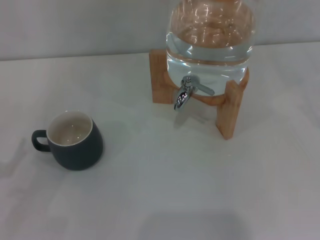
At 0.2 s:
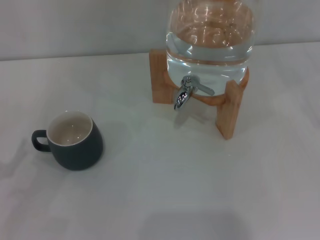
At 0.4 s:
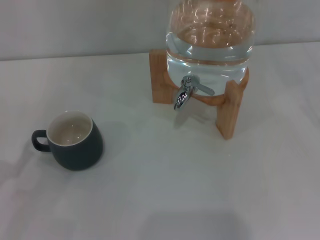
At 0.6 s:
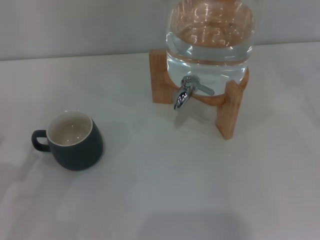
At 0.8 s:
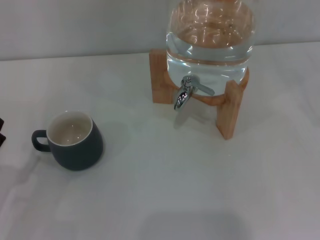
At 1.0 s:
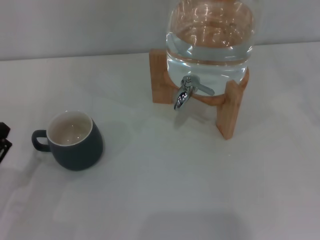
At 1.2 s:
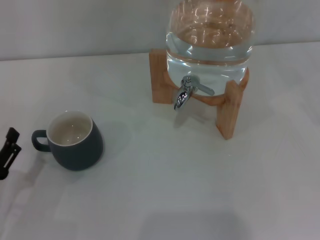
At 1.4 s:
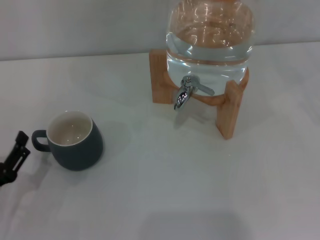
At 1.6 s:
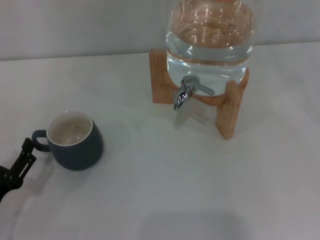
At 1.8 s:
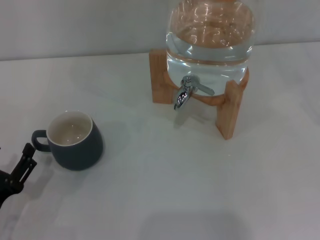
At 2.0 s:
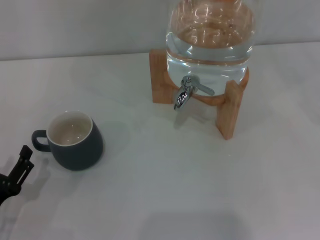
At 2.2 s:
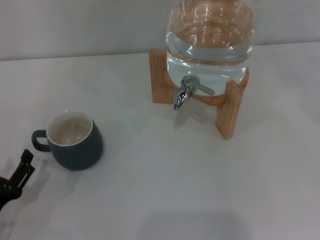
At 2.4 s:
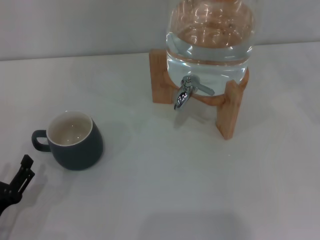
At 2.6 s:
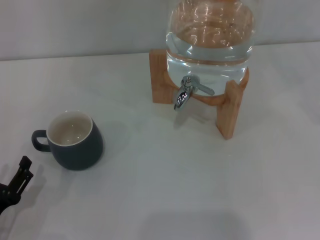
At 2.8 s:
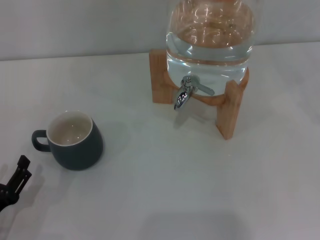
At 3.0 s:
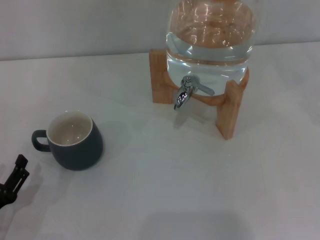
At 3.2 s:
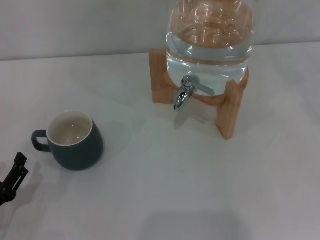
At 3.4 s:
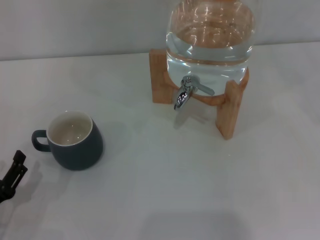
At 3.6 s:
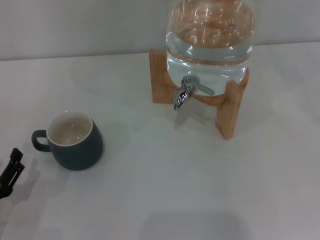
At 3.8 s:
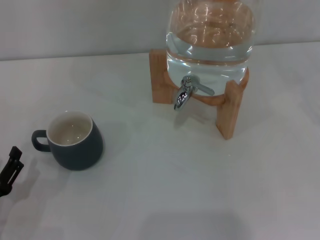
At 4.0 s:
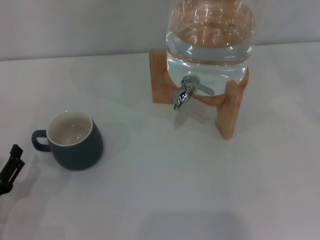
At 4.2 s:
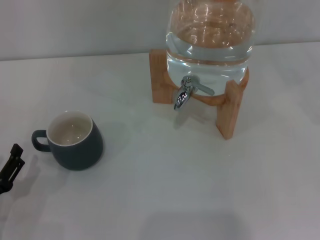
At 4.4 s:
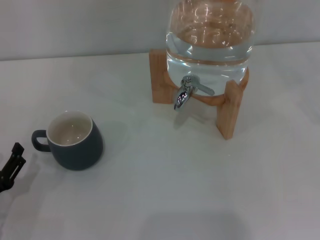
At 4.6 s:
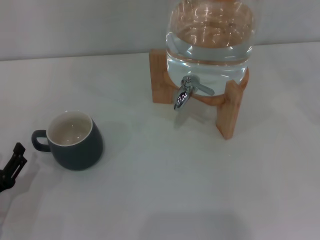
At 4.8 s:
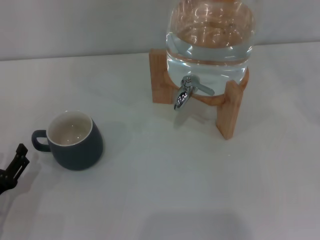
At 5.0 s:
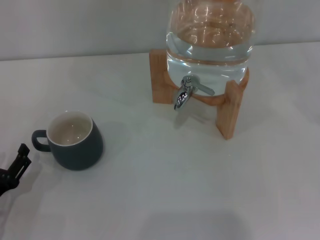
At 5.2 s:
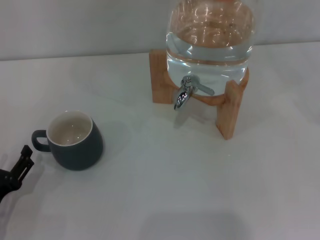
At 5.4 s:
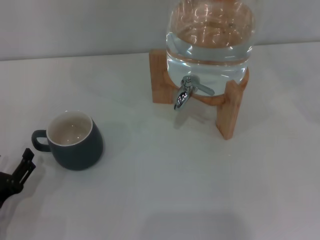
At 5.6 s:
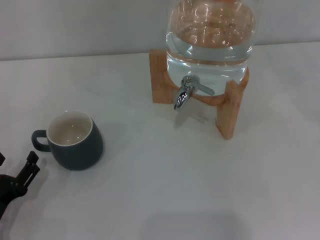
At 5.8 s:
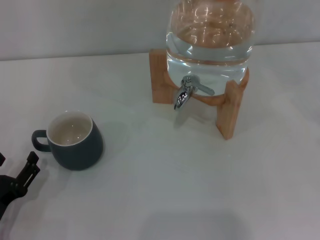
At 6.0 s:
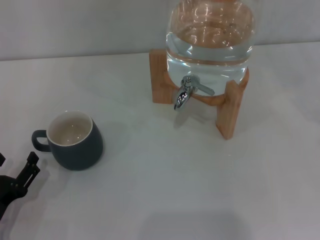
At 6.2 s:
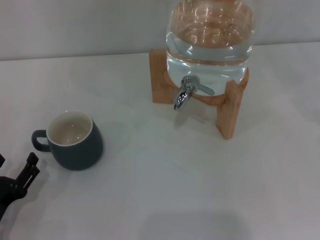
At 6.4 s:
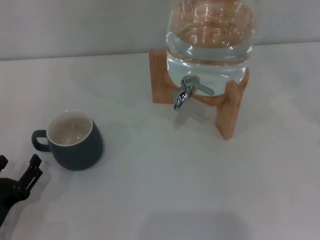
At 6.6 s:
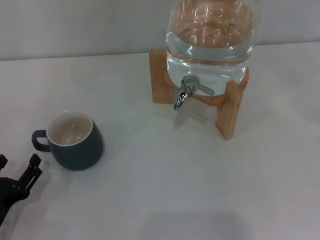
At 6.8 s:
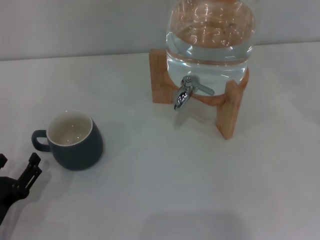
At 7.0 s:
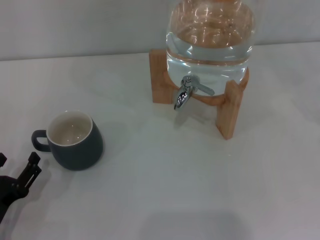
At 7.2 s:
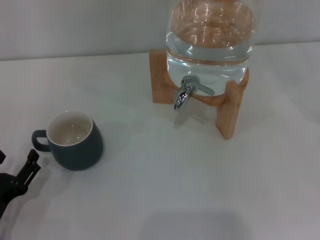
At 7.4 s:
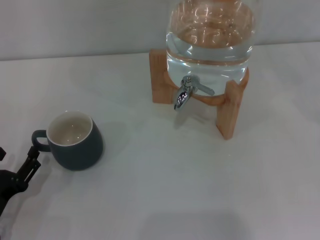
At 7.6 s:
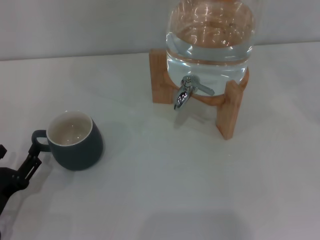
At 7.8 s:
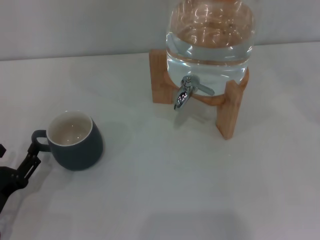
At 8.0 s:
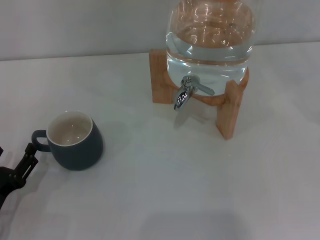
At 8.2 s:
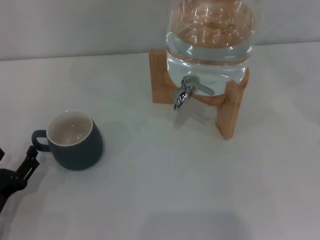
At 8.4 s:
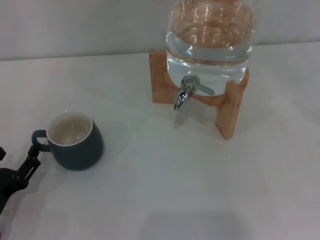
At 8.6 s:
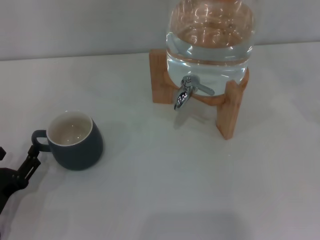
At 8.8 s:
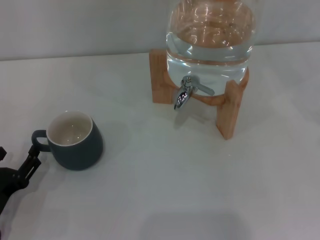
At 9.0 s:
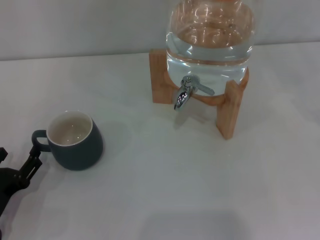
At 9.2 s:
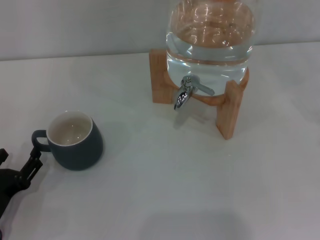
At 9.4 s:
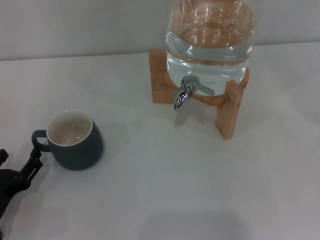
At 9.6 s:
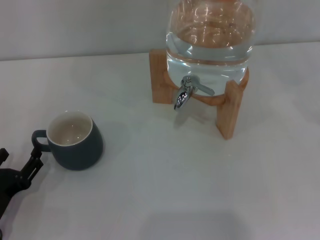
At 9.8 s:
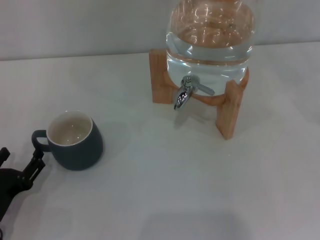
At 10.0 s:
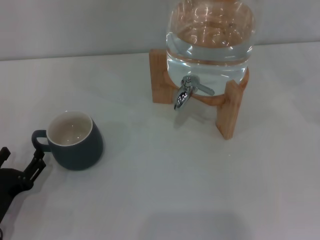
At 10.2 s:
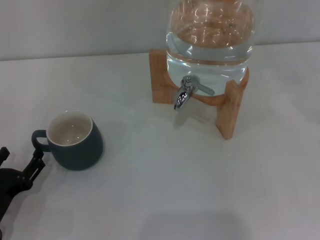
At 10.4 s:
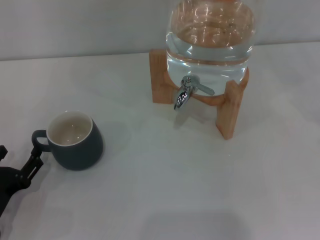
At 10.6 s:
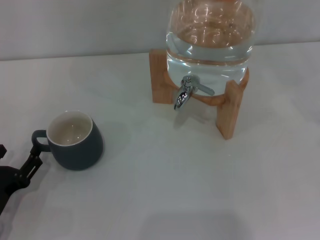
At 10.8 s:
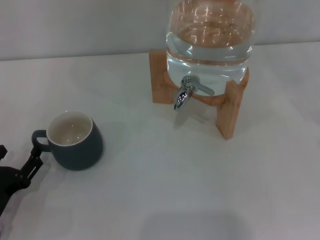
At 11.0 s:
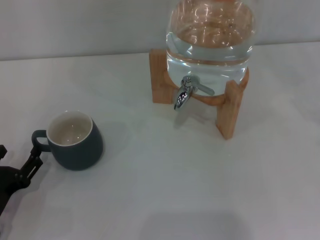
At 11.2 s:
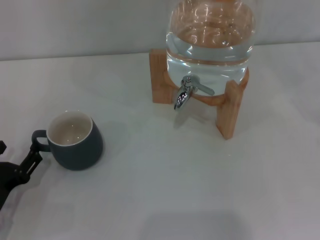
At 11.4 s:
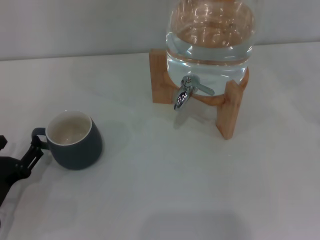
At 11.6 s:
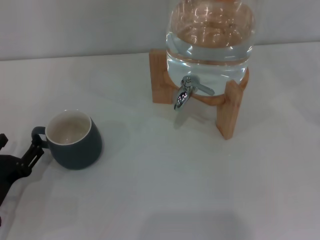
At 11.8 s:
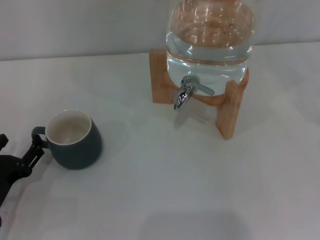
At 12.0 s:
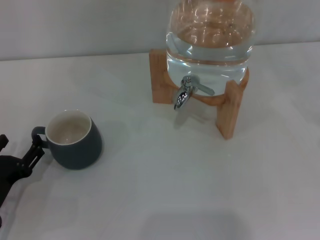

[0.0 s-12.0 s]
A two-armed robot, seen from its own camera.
Task of the whole recording: the left gripper pick up the black cup and place it horizontally under the faucet, the right gripper turn on the faucet to fill the cup, and then turn off the faucet.
0.0 to 1.6 s: The left gripper heads to the right and downward, covering some 10 cm.
1.6 to 4.4 s: There are only small adjustments of the grippers.
4.4 to 6.0 s: Neither gripper changes place.
6.0 to 7.6 s: Both grippers stay put.
7.6 to 9.0 s: Both grippers stay about where they are.
9.0 to 10.4 s: Neither gripper changes place.
10.4 to 12.0 s: The grippers stay close to where they were, moving slightly.

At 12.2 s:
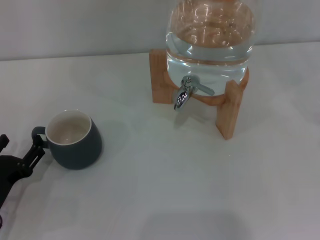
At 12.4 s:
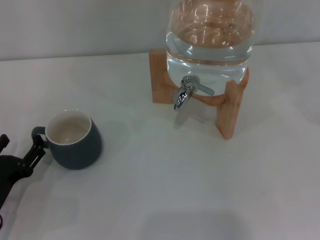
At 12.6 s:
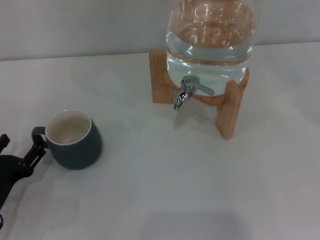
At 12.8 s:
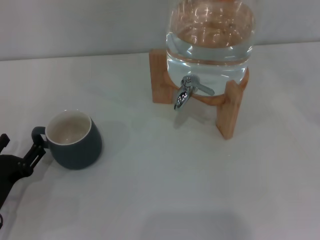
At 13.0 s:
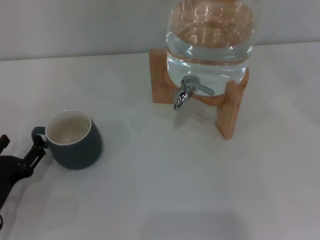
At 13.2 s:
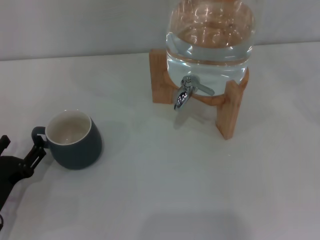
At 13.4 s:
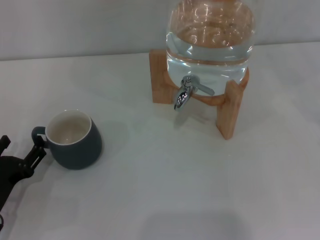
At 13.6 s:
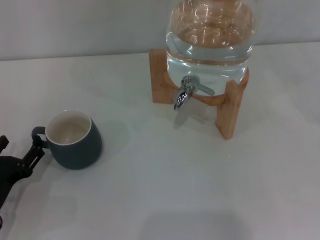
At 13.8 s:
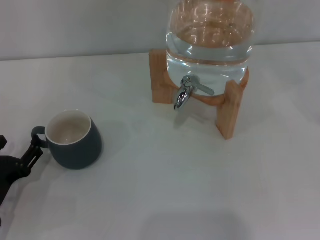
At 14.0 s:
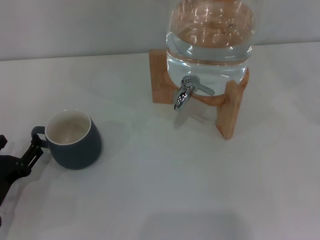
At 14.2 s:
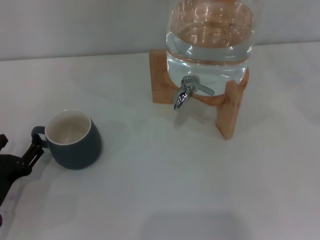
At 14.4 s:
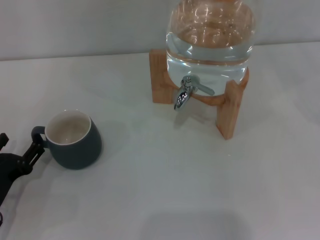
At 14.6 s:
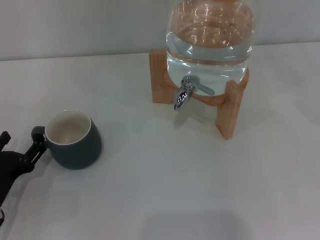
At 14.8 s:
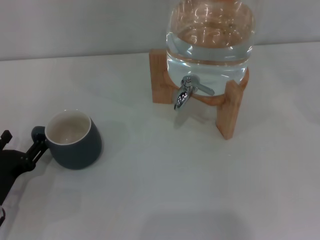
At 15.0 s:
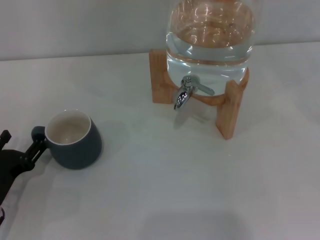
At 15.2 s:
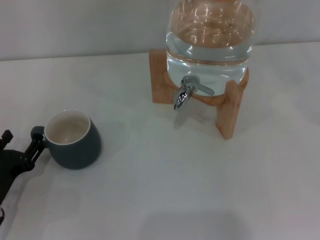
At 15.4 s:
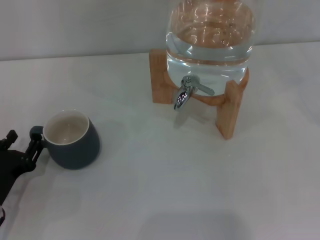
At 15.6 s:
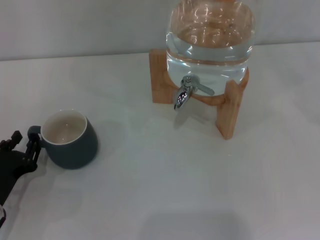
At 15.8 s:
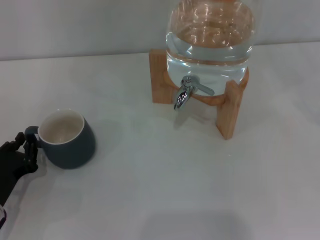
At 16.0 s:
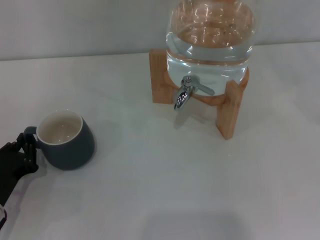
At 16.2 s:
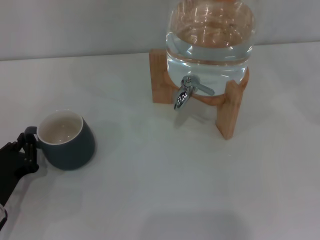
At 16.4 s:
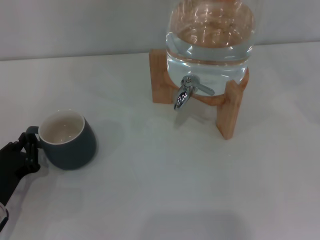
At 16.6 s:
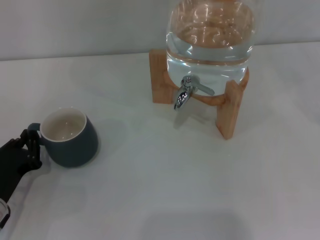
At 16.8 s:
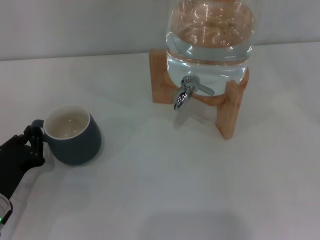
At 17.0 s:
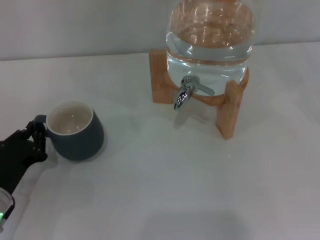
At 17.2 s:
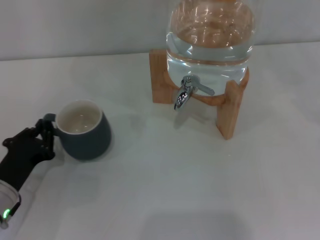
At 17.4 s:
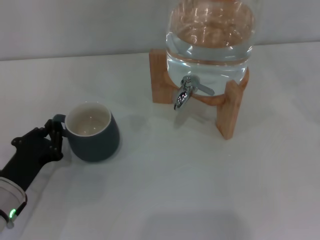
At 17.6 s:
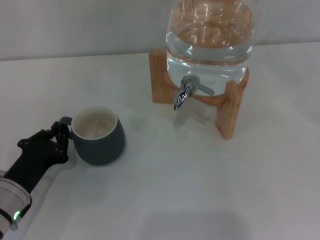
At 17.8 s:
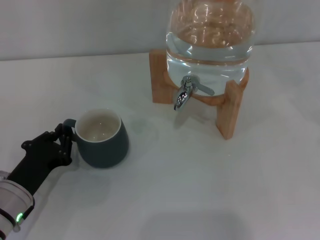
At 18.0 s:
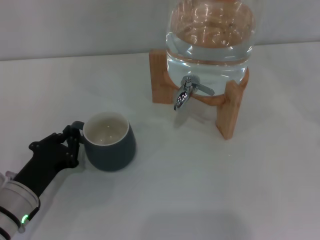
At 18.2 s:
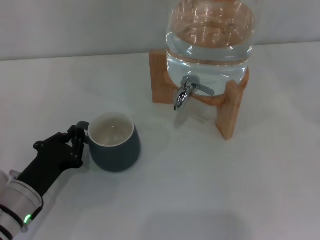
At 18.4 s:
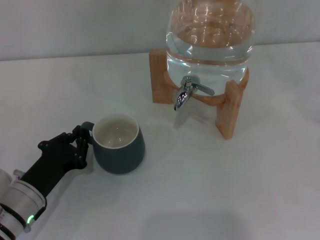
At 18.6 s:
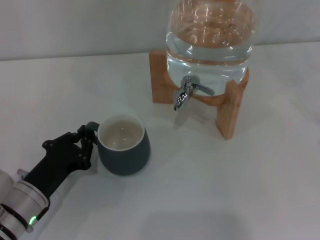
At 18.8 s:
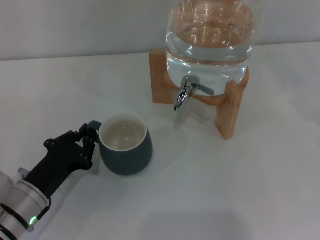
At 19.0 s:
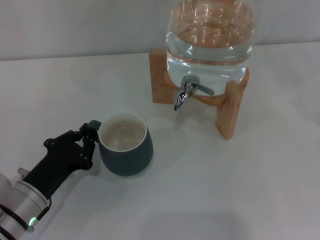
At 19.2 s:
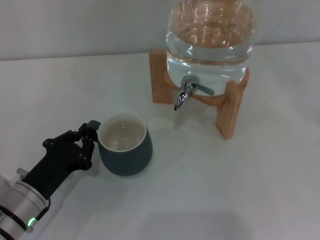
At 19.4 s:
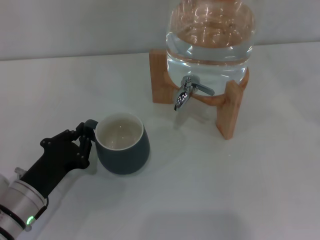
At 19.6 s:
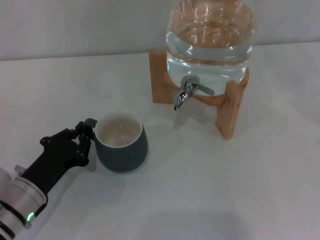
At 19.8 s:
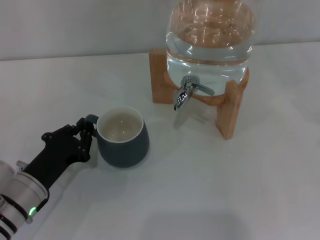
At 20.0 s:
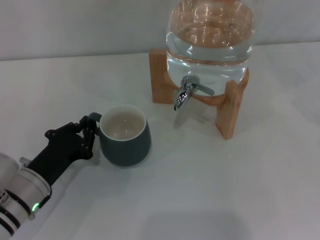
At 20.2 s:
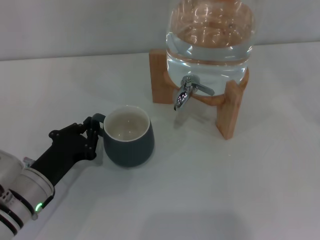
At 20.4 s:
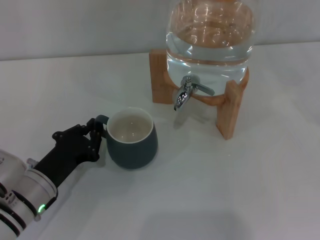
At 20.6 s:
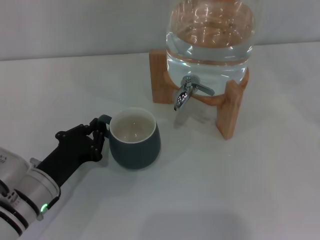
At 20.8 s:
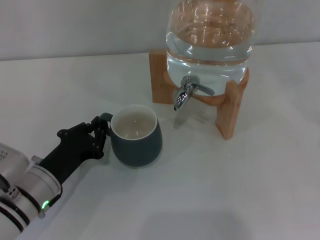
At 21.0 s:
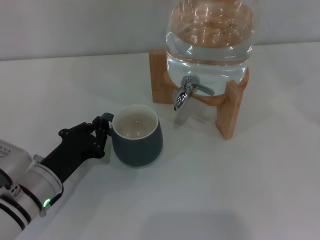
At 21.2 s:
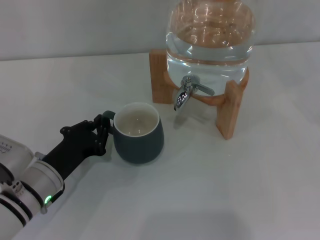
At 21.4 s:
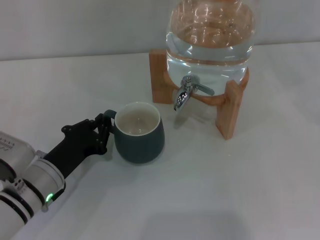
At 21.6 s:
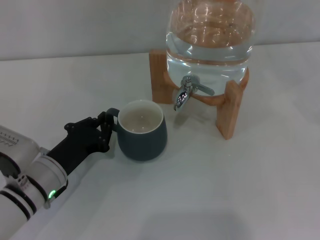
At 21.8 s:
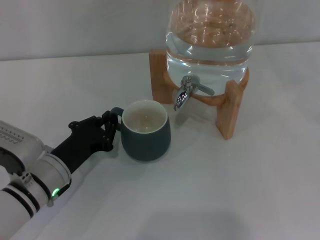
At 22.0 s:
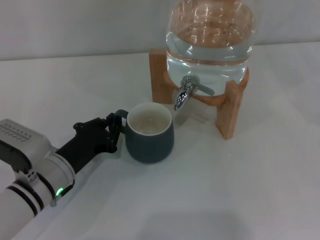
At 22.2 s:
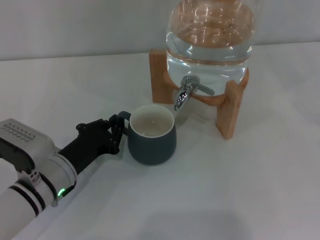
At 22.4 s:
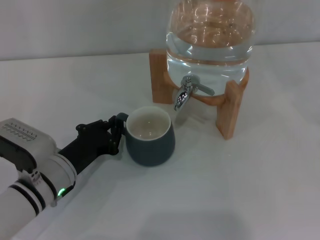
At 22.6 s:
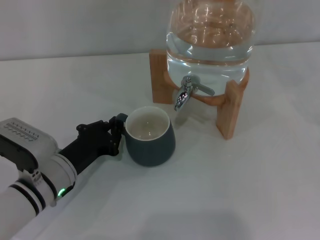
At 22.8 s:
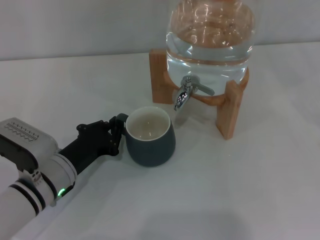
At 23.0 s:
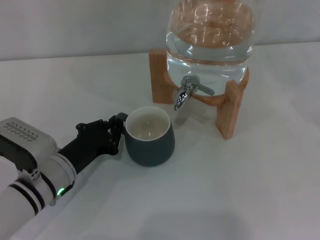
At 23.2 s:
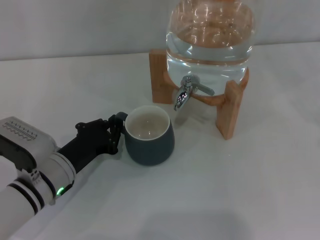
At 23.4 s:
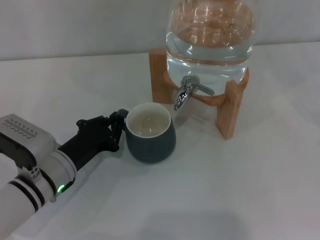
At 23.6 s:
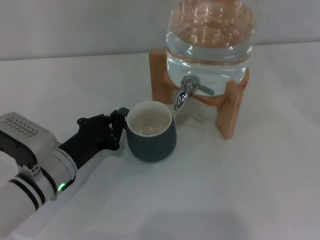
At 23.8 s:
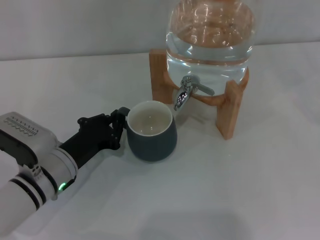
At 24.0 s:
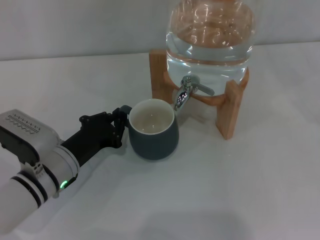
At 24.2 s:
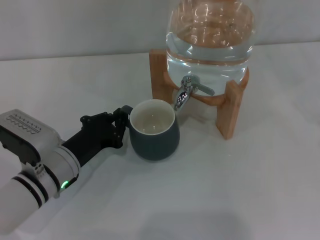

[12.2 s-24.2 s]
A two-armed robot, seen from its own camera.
Task of the whole recording: the left gripper pick up the black cup and place it horizontally under the faucet, the right gripper turn on the faucet to fill the cup, and then turn off the faucet.
12.2 to 15.2 s: Both grippers stay put.
15.2 to 16.6 s: The left gripper closes up.
16.6 to 19.8 s: The grippers make only small movements.
19.8 to 22.6 s: The grippers make only small movements.
22.6 to 24.2 s: Both grippers stay about where they are.
